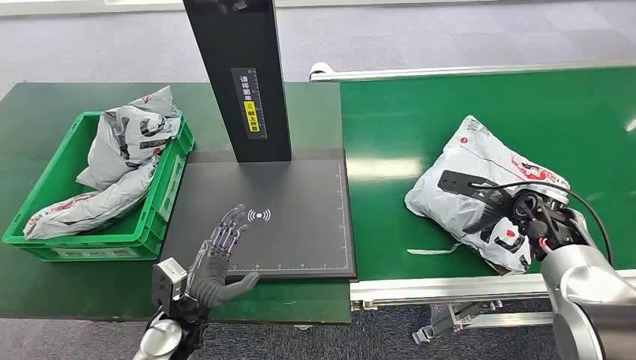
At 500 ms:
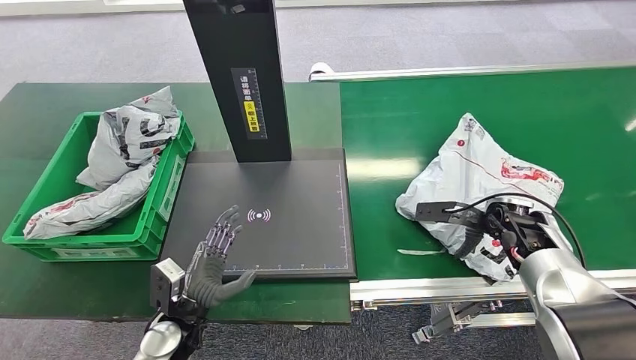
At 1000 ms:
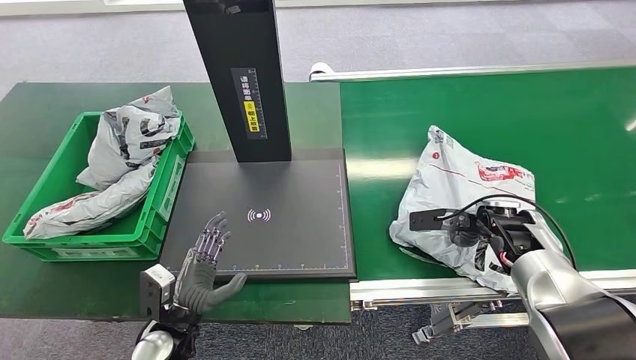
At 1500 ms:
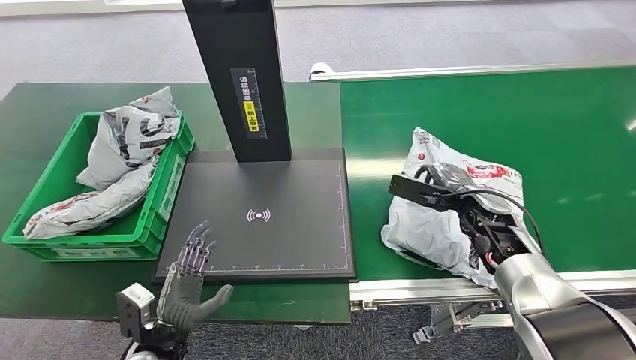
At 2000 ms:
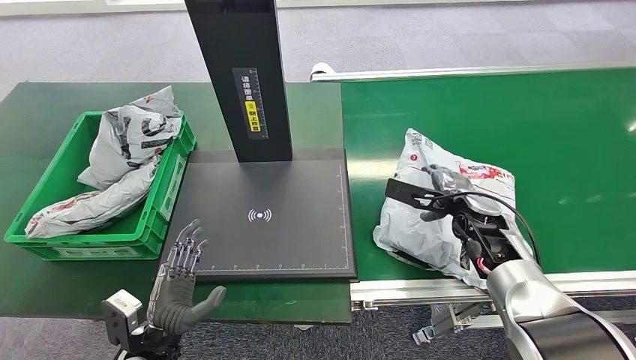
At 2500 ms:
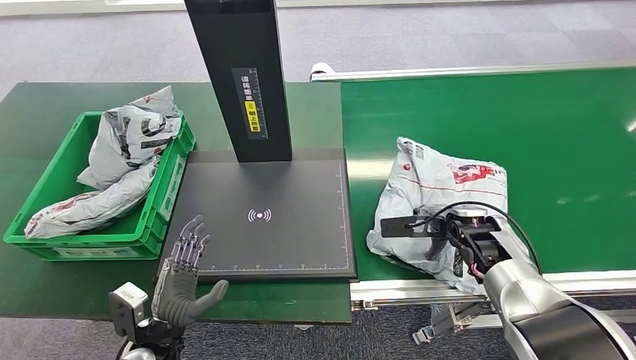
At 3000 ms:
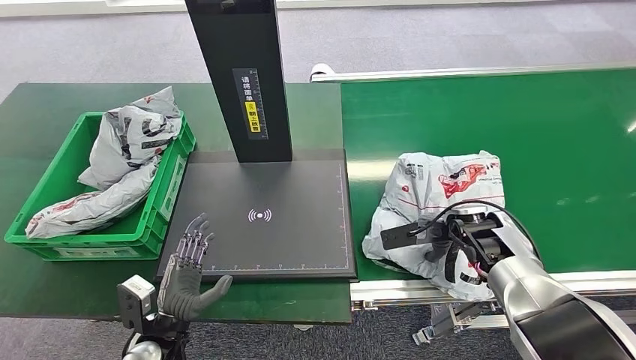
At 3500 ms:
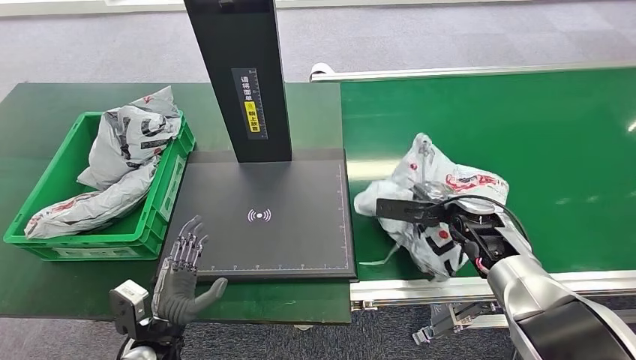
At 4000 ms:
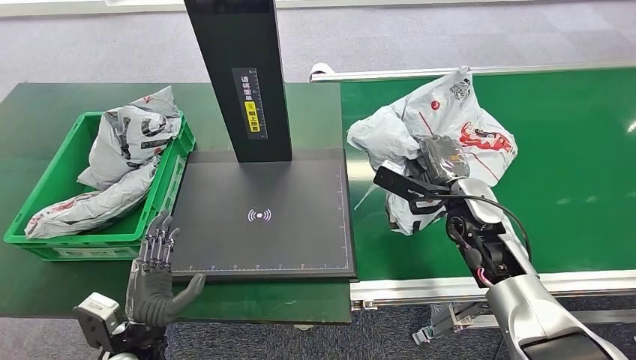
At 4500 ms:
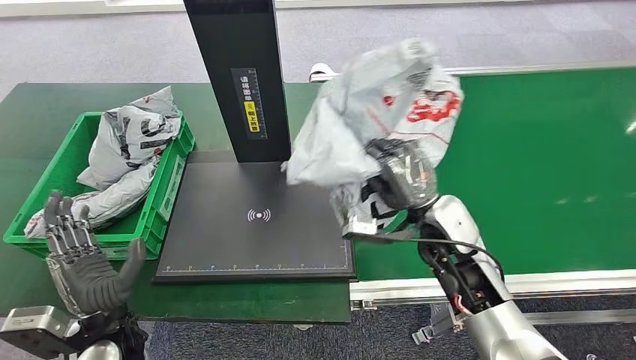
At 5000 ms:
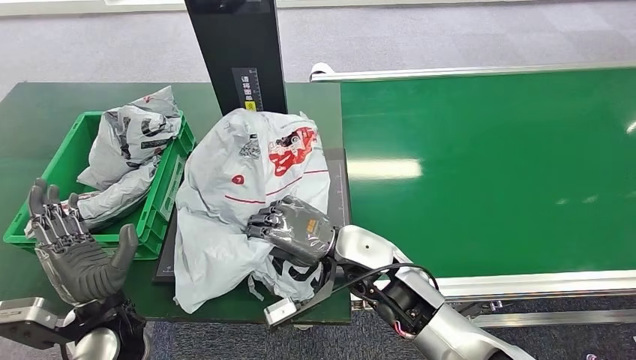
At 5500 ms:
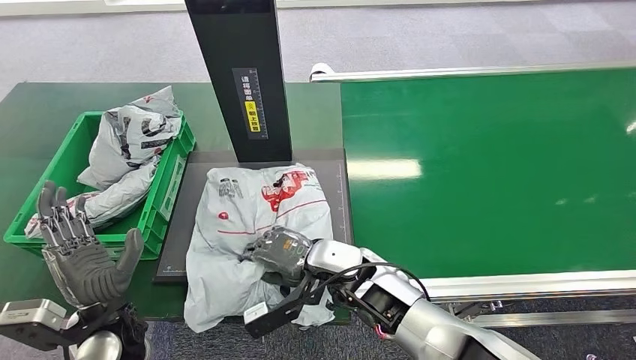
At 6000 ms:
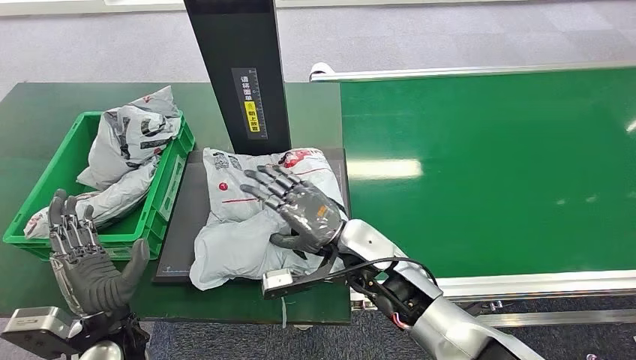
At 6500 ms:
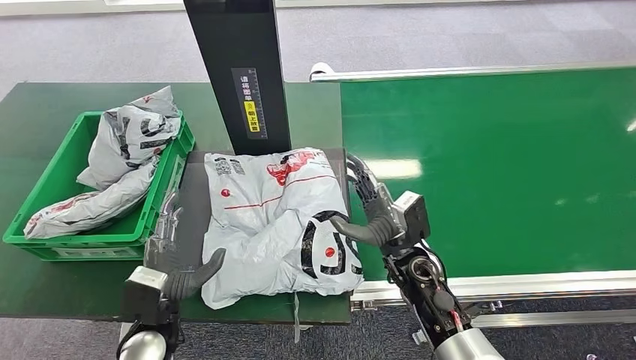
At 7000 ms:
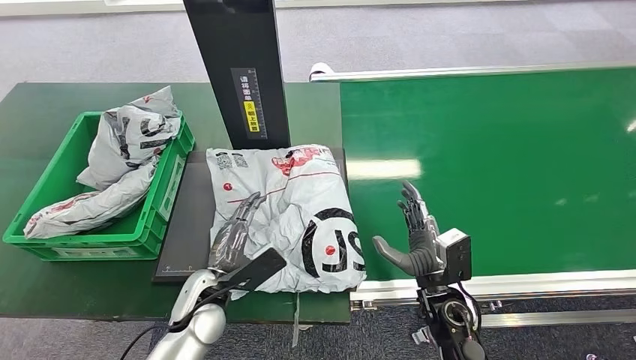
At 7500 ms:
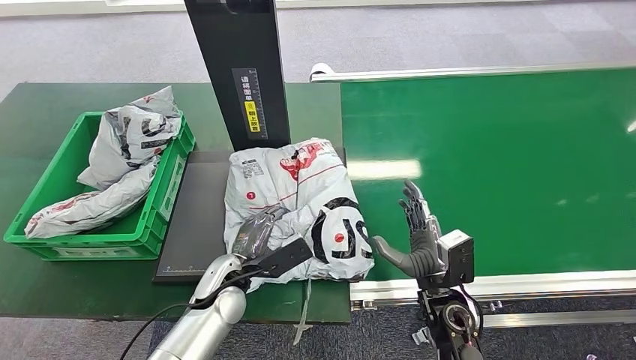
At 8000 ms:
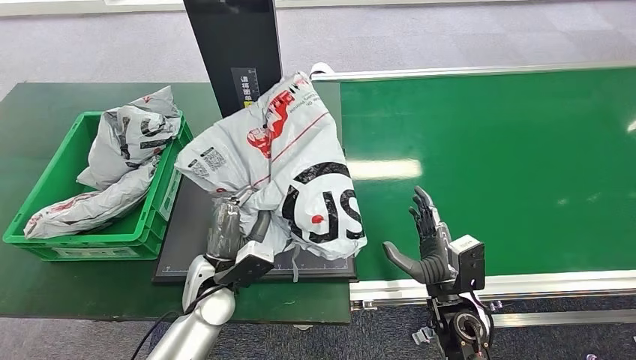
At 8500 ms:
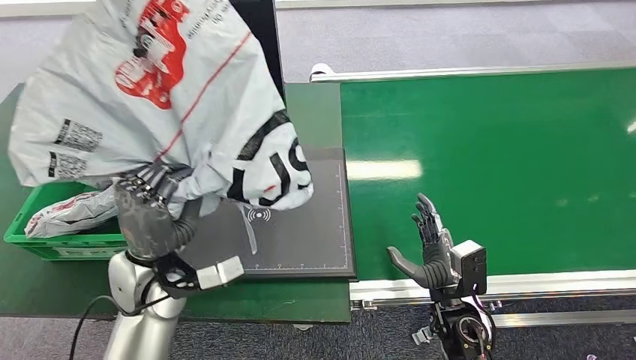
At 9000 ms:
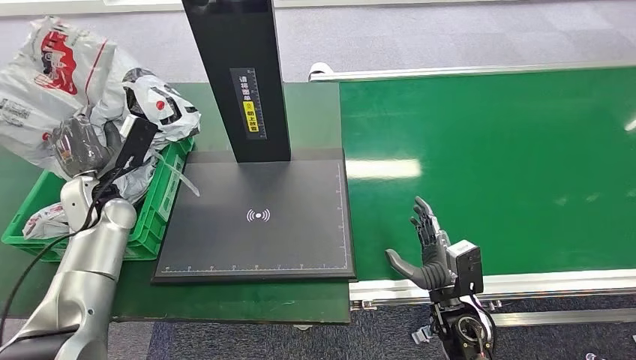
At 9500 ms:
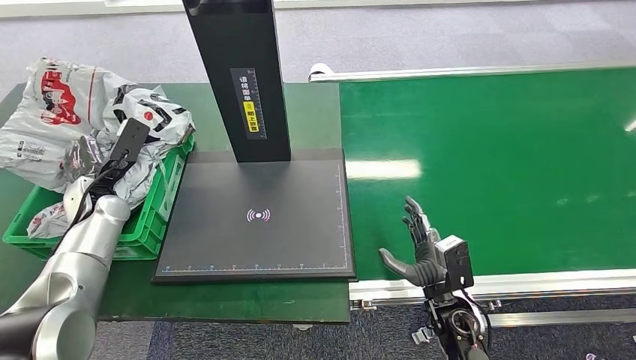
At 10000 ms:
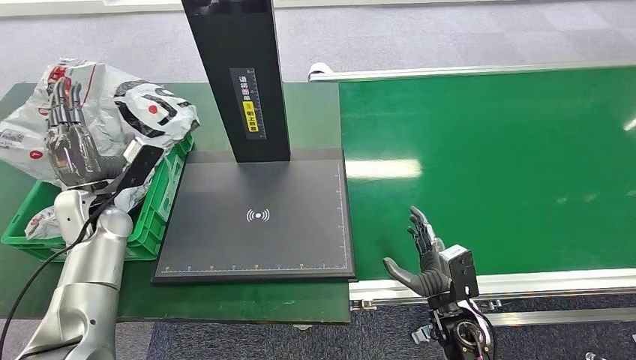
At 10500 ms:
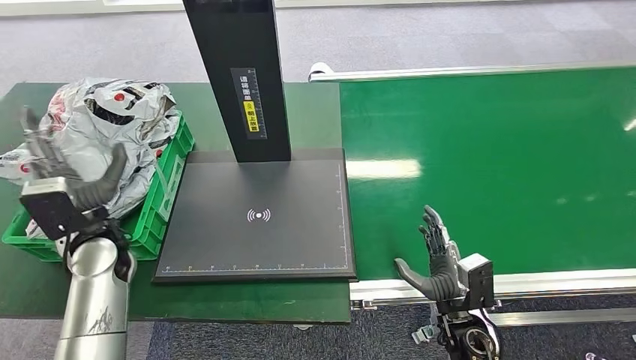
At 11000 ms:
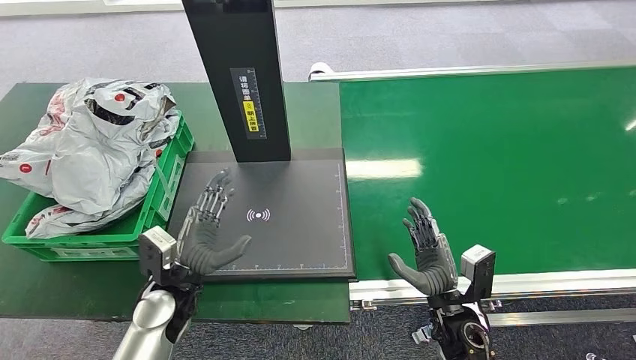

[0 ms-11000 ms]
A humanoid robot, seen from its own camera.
Task of the whole recording: Weigh the package on the weighing device and place it in the left basket.
Step, 0 ms to 4000 ms: Pick up the package from the conveyor belt.
Step, 4500 ms to 6500 ms: Place the package onto the inbound machine.
Step, 7000 ms to 8000 ms: Pick up the package from the inbound machine.
Step, 8500 ms to 11000 ms: Place the package into the parcel locker.
9000 ms to 11000 ms: The left hand goes approximately 20 cm to the right, backward and downward.
